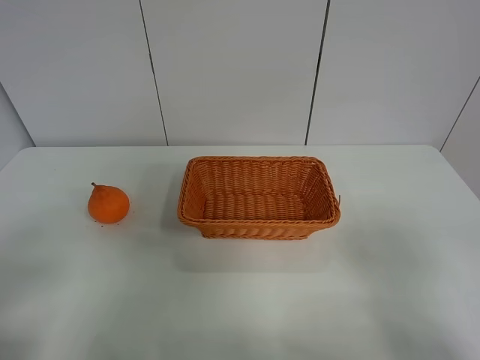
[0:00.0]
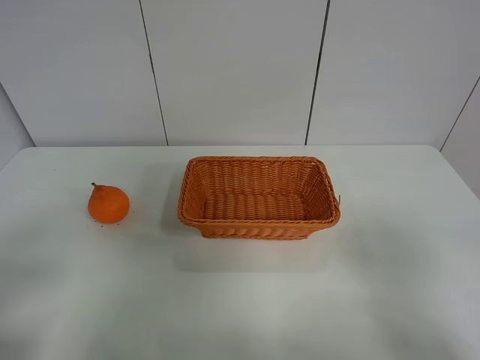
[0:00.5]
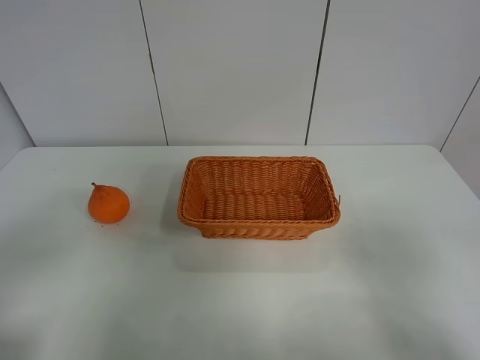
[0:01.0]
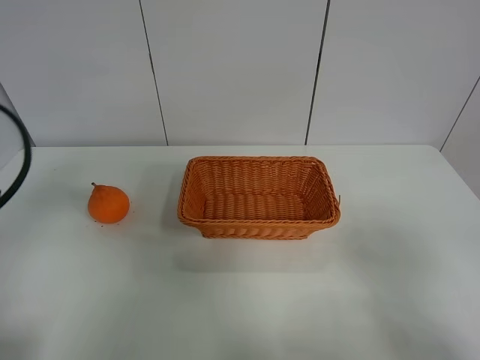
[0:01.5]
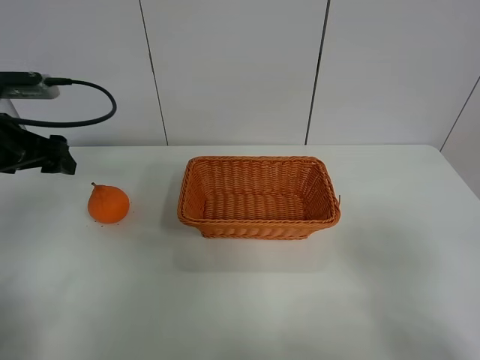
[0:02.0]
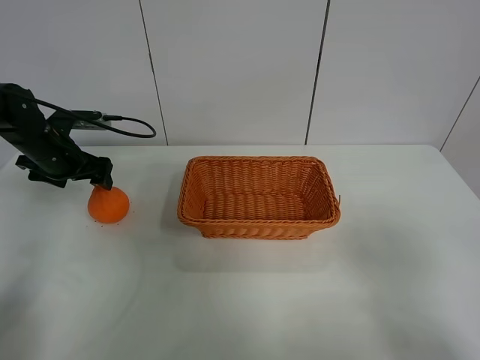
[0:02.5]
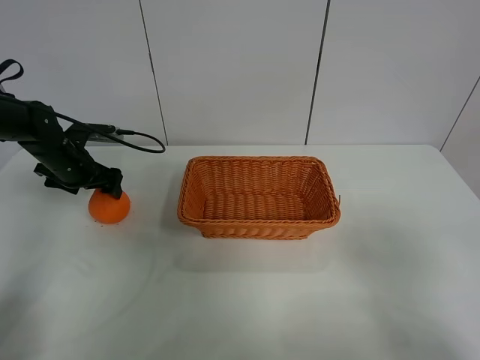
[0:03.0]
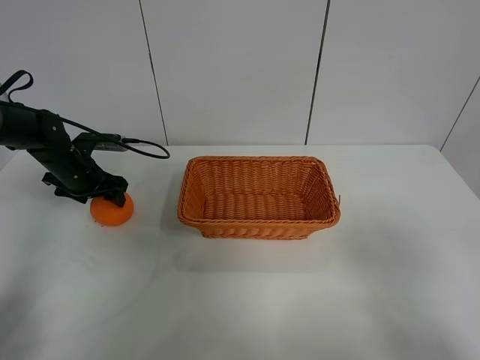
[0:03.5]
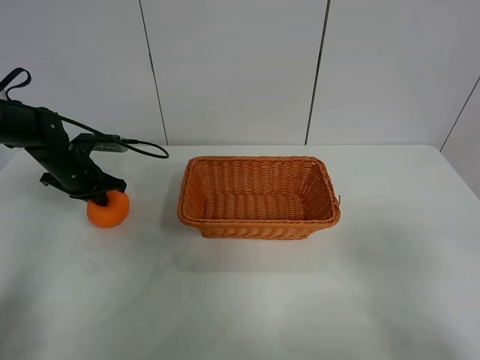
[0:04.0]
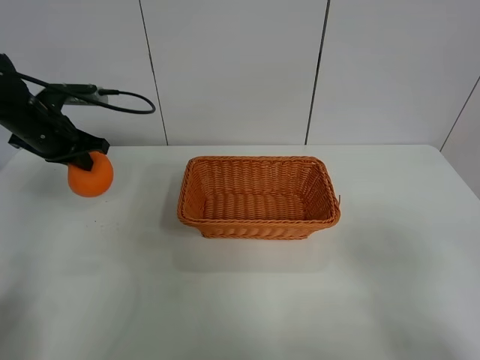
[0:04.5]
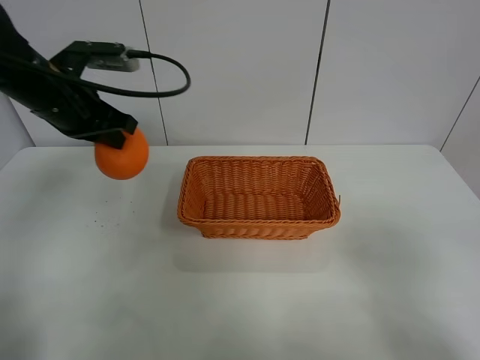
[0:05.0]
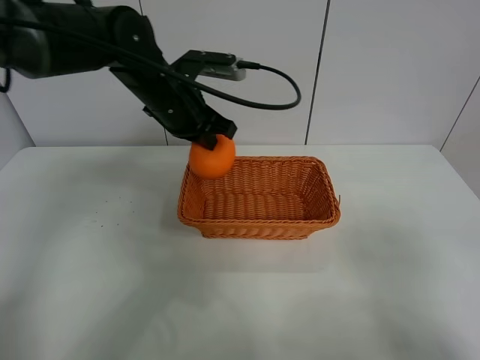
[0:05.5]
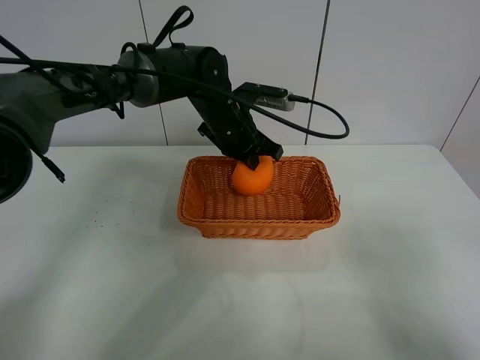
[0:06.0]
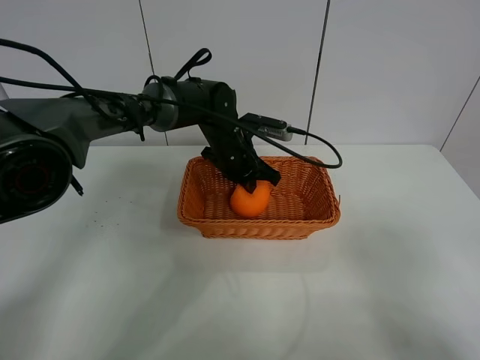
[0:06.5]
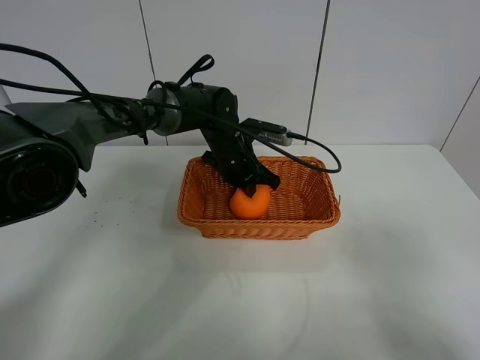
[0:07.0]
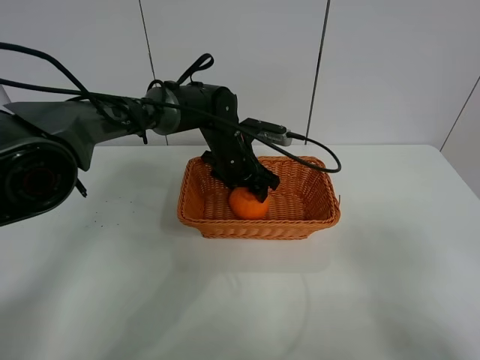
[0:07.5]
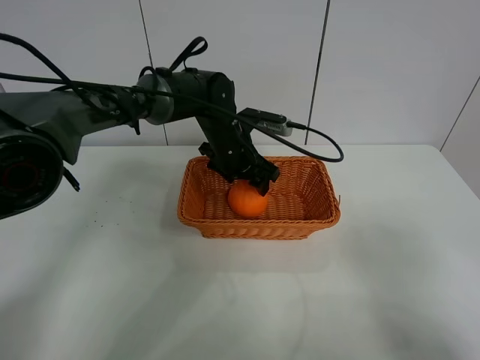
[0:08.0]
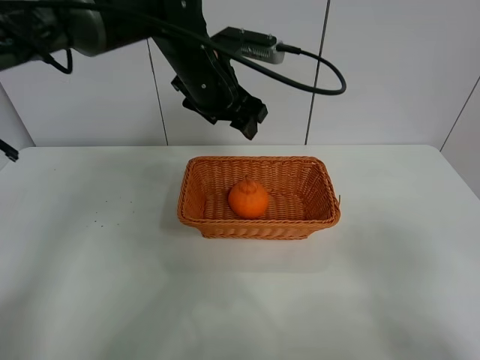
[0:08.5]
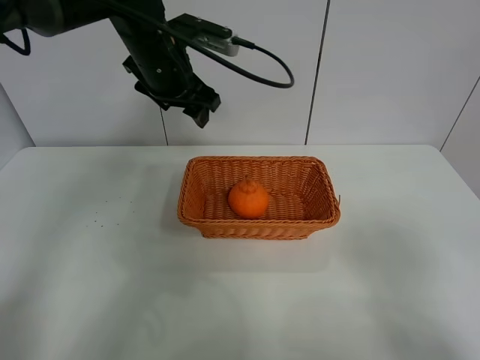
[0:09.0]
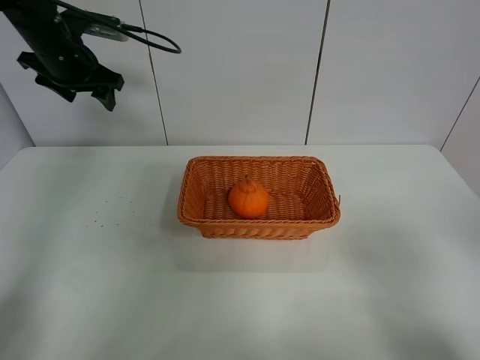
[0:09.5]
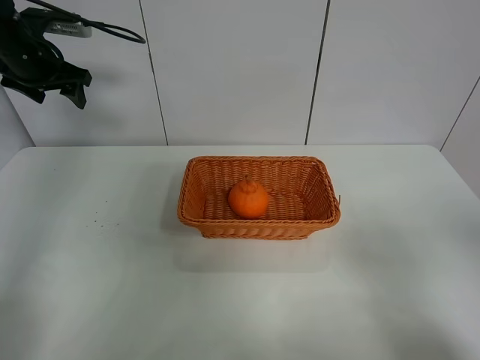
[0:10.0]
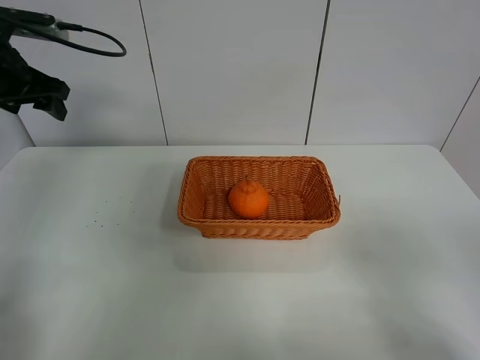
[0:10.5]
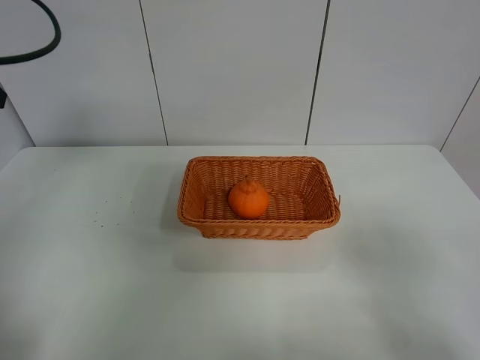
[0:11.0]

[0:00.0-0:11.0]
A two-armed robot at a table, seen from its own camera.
Task of the whole recording: left gripper grabs oranges and puts them in the basket.
Step, 0:00.0 to 0:03.5: Grasp the orange with left gripper.
Step, 0:04.0 to 0:09.0: Place the orange in the basket with left gripper.
0:00.0 to 0:02.0: The left gripper is displaced forward by approximately 30 cm.
0:02.0 to 0:03.5: The left gripper heads downward and forward, covering some 15 cm.
0:03.5 to 0:05.5: The left gripper is displaced to the right and upward by some 25 cm, and closes up.
0:05.5 to 0:07.5: The left gripper travels downward and to the right by about 15 cm, and opens up.
0:07.5 to 0:09.0: The left gripper goes some 20 cm upward and to the left.
0:09.0 to 0:11.0: The left gripper moves to the left and backward, some 25 cm.
